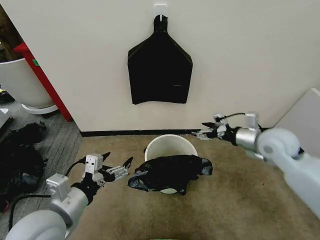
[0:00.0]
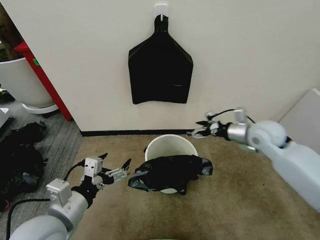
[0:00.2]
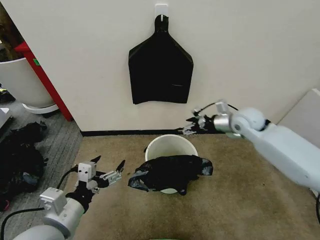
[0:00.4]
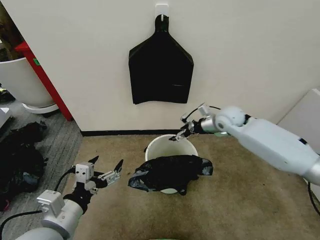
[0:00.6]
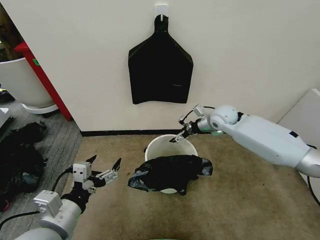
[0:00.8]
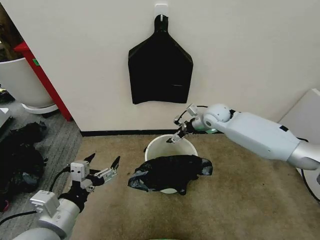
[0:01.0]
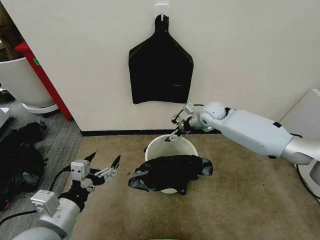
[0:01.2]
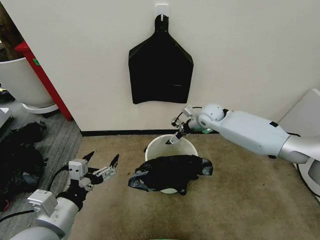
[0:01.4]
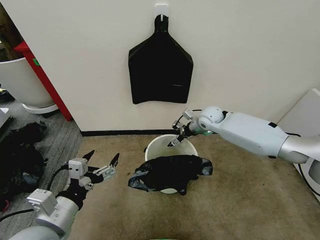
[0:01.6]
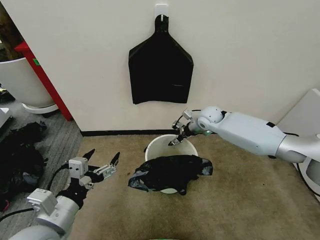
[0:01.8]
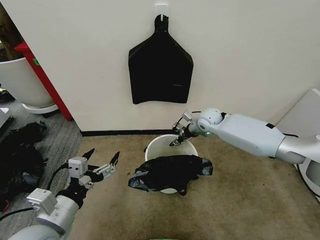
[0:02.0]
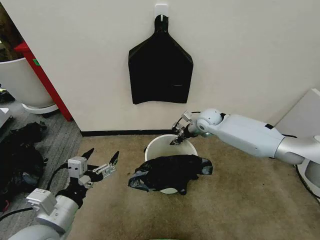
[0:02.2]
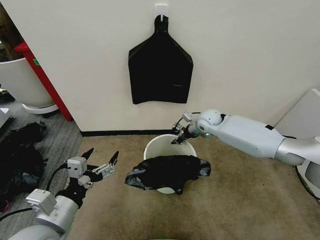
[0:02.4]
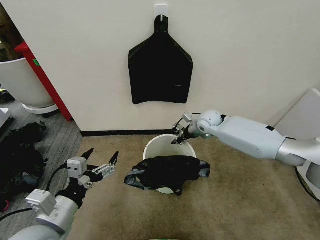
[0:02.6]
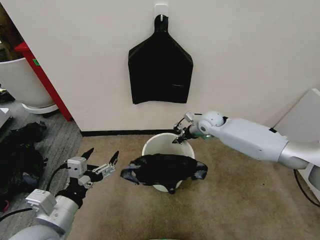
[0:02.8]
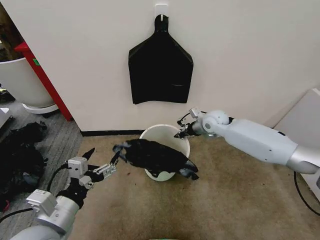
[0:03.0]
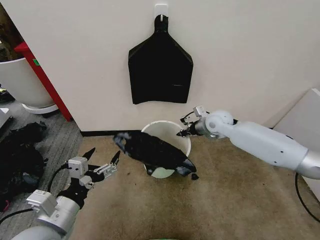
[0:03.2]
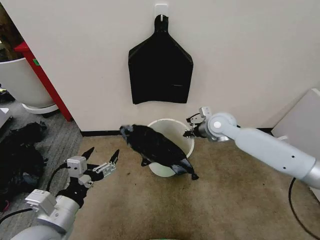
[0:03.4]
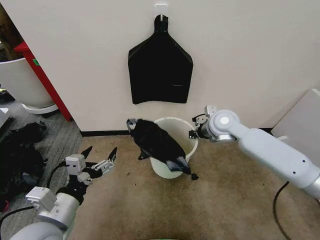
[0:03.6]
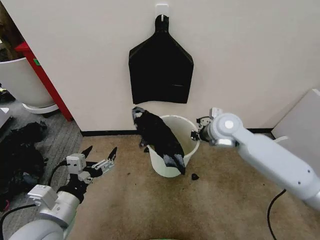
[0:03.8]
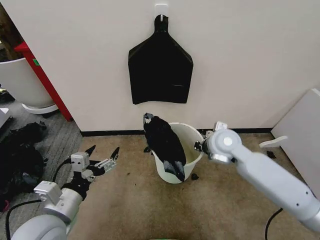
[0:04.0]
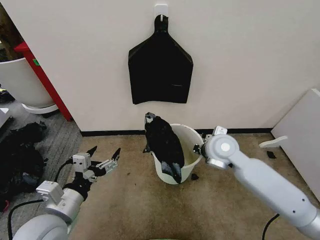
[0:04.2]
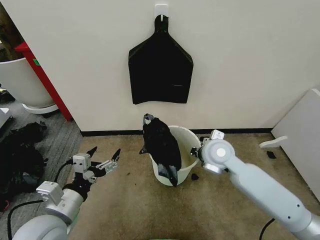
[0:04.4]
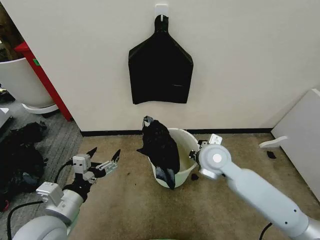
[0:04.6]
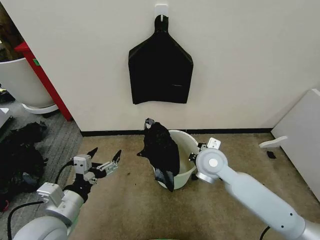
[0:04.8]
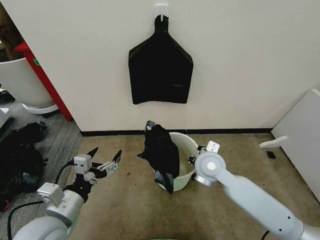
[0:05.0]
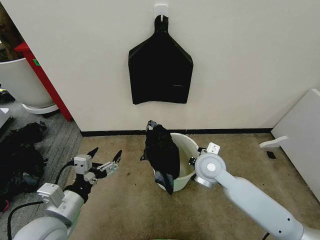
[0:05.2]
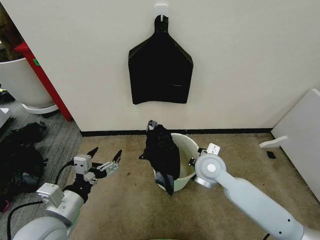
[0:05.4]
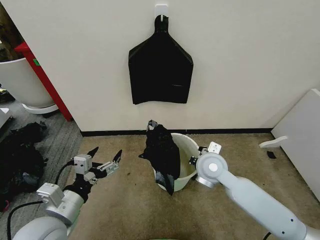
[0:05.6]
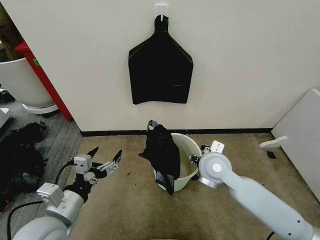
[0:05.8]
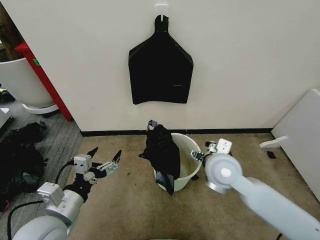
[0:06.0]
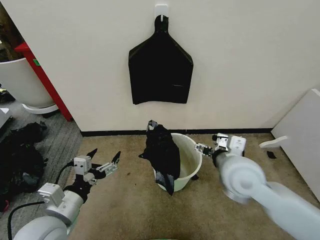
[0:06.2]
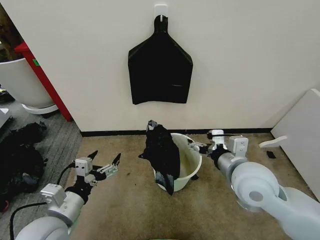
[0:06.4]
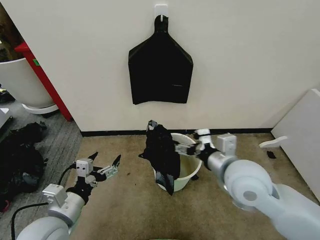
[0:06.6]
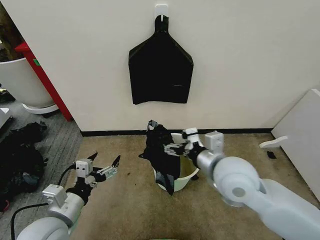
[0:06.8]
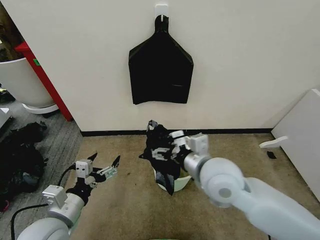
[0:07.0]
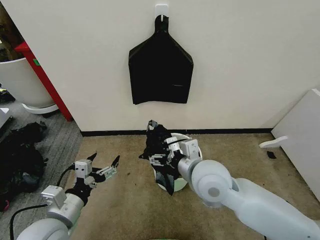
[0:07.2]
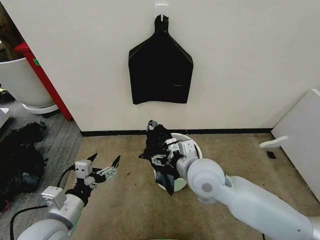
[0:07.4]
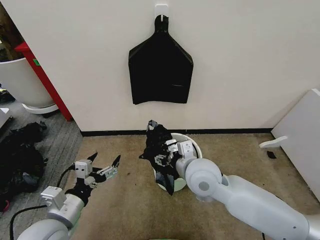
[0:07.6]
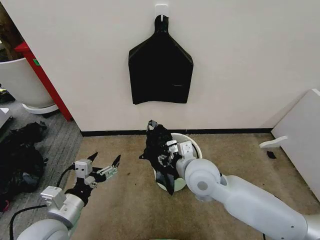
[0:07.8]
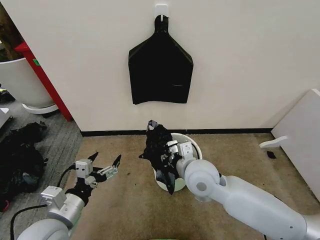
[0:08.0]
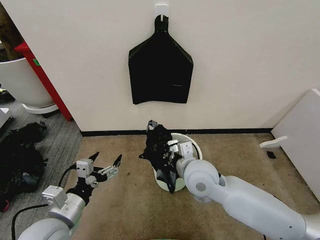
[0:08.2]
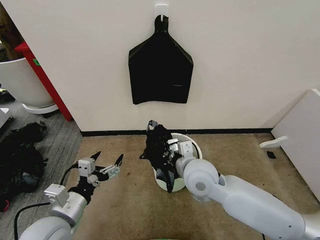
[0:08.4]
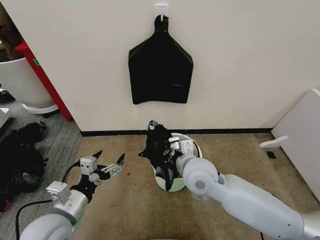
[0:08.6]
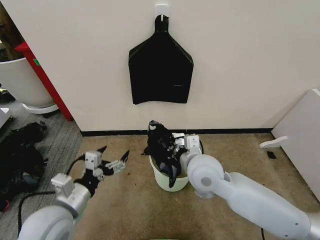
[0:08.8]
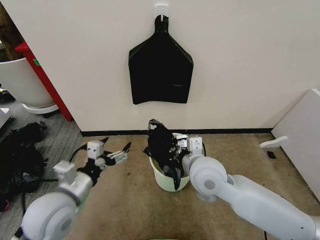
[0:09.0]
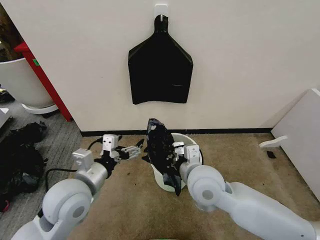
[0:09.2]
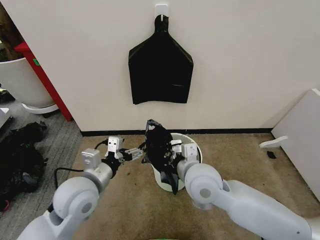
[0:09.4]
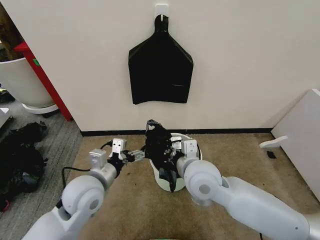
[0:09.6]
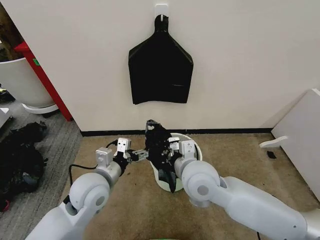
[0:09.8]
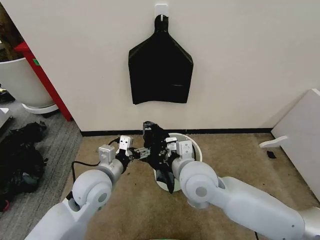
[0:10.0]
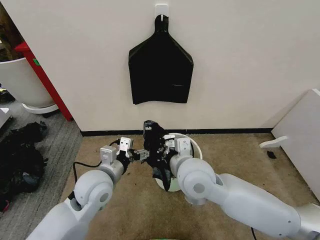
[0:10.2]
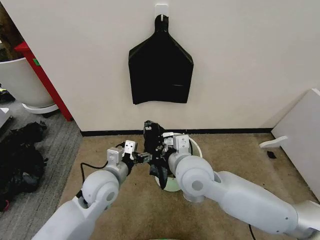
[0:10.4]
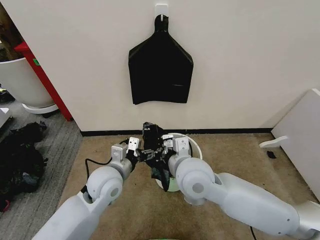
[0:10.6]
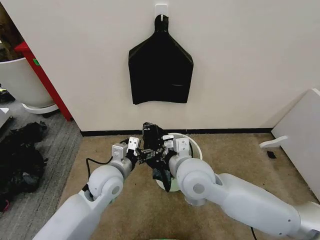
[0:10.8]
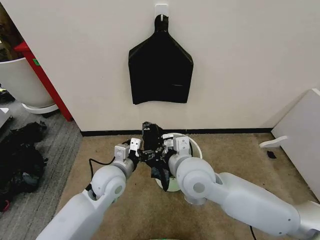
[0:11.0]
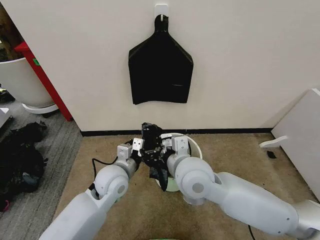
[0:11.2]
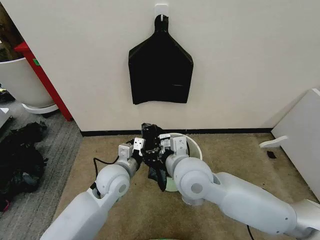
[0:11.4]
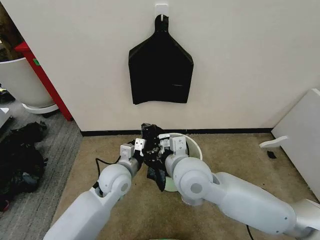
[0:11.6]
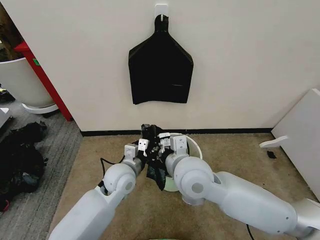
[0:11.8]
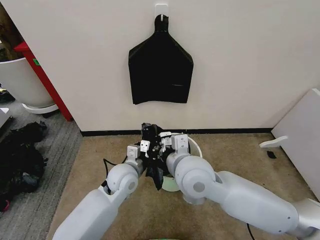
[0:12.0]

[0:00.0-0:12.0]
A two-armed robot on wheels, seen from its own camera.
Task of the whole recording: Place the garbage bag over the trash bin.
0:00.0 to 0:01.6: The right gripper is displaced forward and to the left by some 25 cm.
0:01.6 to 0:03.0: The right gripper closes up.
0:03.0 to 0:04.4: The right gripper heads backward, covering some 15 cm.
0:04.4 to 0:06.0: The right gripper is displaced backward by roughly 5 cm, and opens its fingers.
0:06.0 to 0:07.6: The right gripper moves to the left, about 5 cm.
0:07.6 to 0:09.0: The left gripper ends up about 5 cm from where it was. Meanwhile the right gripper closes.
0:09.0 to 0:10.4: The left gripper heads forward and to the right, covering about 10 cm.
0:10.4 to 0:12.0: The left gripper goes approximately 5 cm to the right.

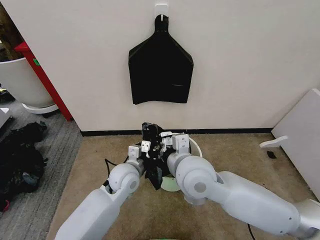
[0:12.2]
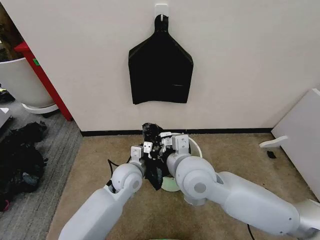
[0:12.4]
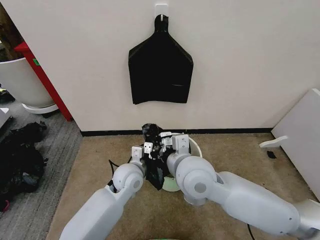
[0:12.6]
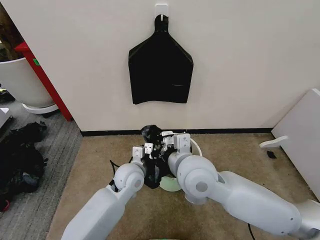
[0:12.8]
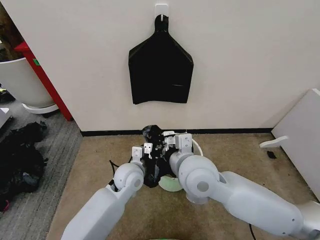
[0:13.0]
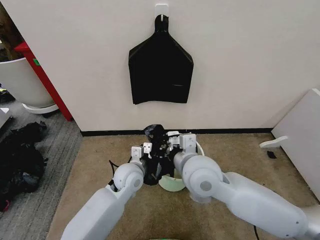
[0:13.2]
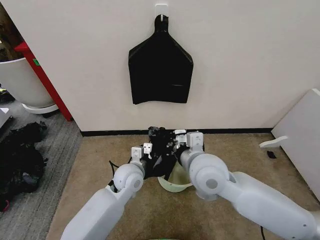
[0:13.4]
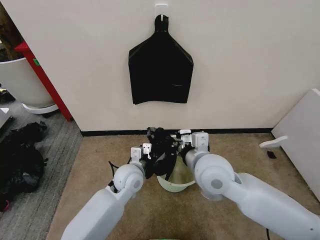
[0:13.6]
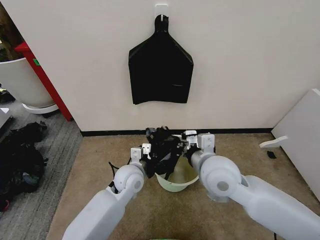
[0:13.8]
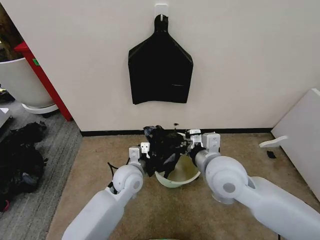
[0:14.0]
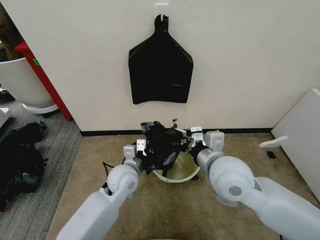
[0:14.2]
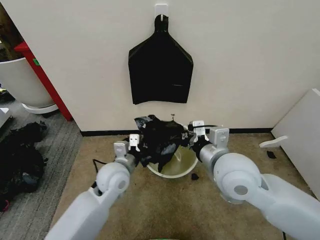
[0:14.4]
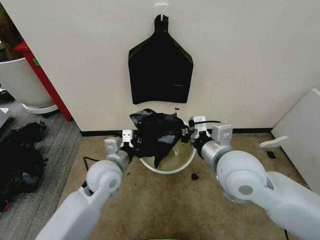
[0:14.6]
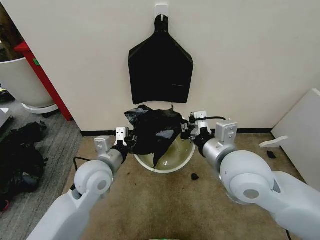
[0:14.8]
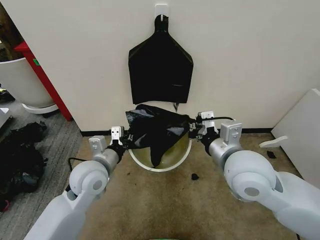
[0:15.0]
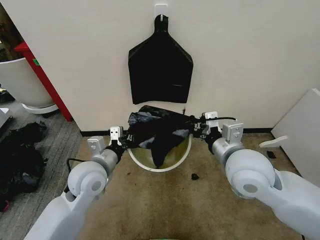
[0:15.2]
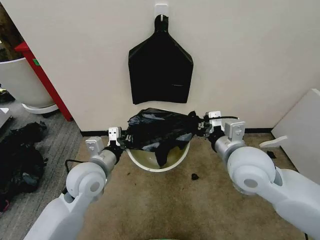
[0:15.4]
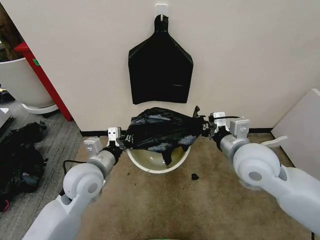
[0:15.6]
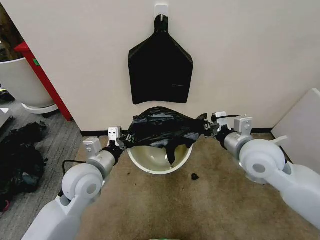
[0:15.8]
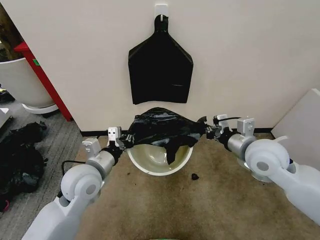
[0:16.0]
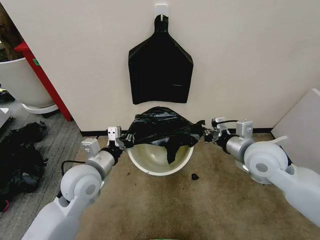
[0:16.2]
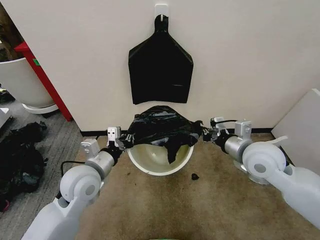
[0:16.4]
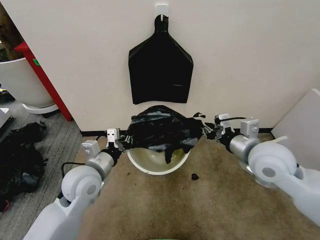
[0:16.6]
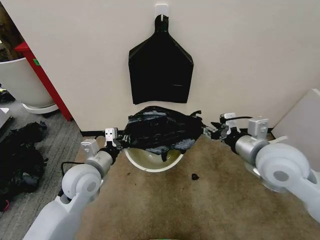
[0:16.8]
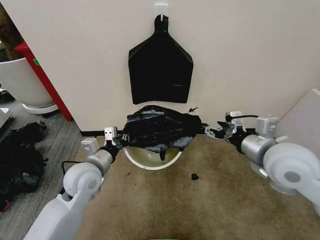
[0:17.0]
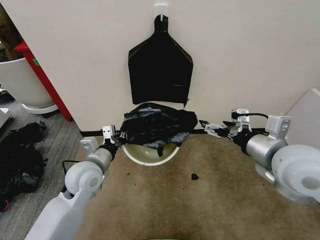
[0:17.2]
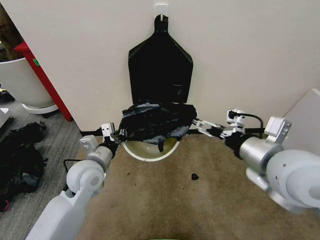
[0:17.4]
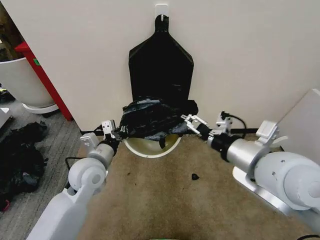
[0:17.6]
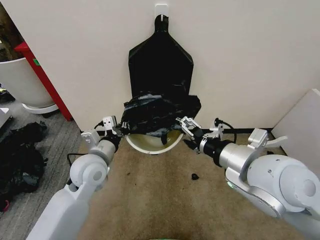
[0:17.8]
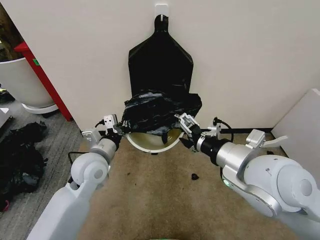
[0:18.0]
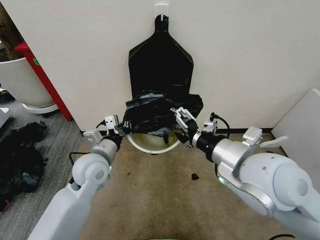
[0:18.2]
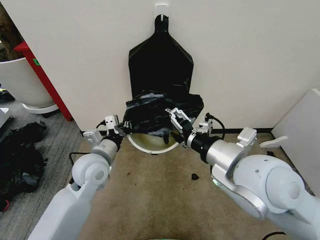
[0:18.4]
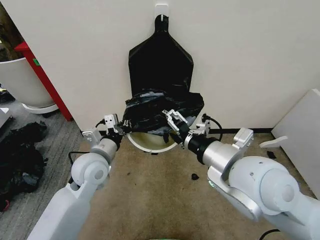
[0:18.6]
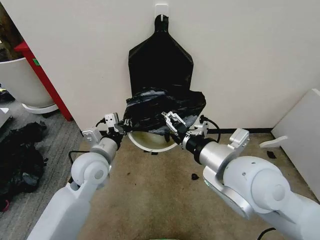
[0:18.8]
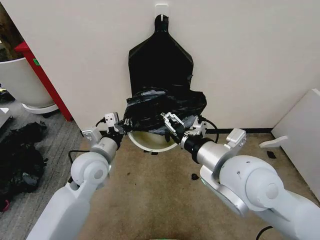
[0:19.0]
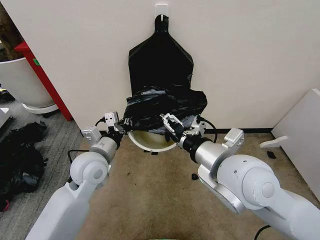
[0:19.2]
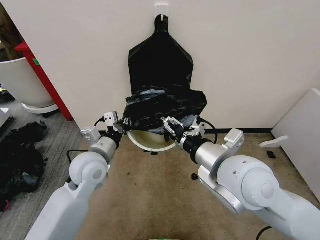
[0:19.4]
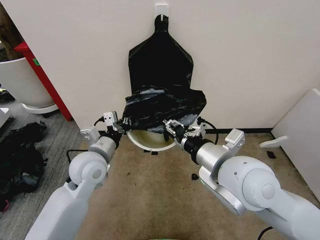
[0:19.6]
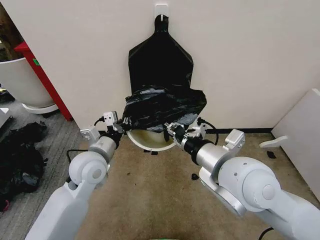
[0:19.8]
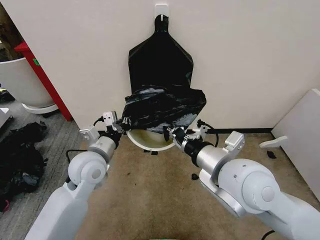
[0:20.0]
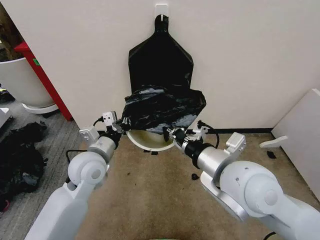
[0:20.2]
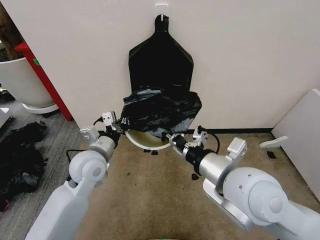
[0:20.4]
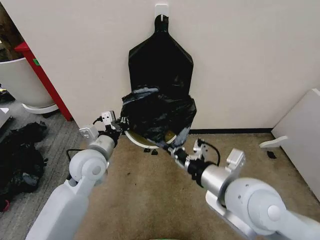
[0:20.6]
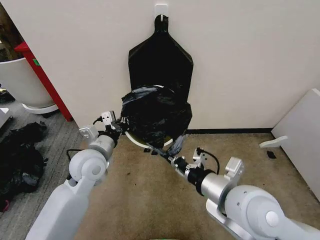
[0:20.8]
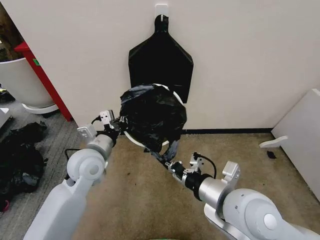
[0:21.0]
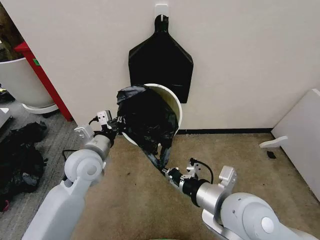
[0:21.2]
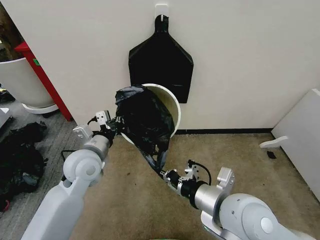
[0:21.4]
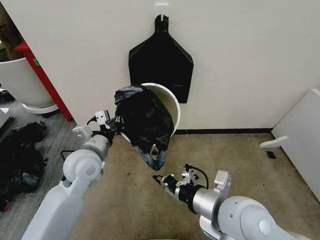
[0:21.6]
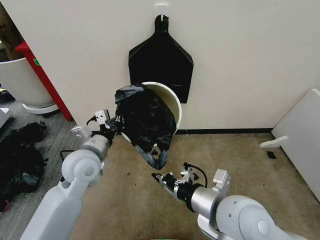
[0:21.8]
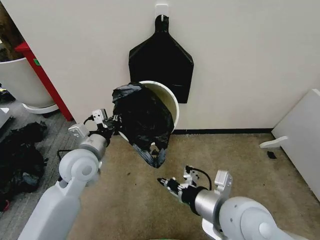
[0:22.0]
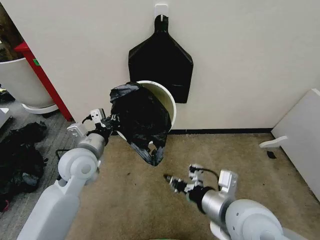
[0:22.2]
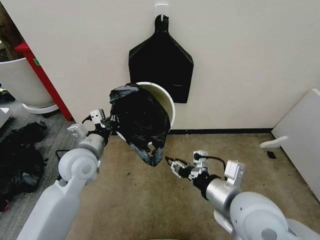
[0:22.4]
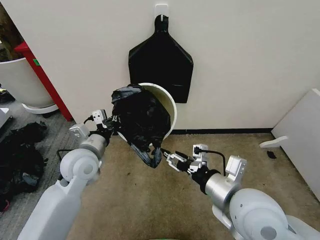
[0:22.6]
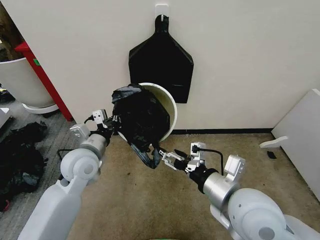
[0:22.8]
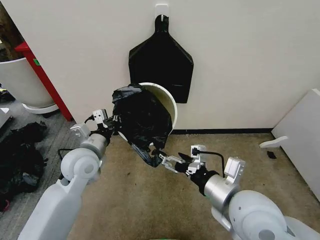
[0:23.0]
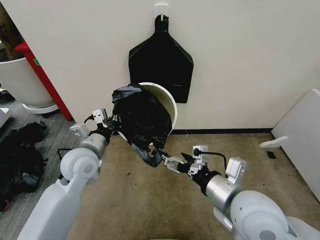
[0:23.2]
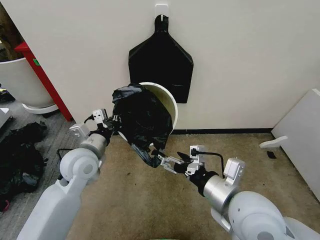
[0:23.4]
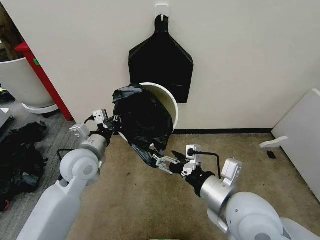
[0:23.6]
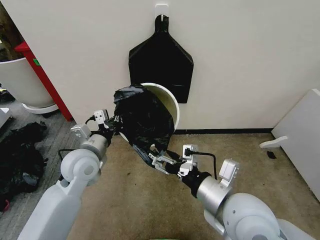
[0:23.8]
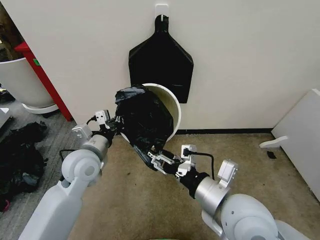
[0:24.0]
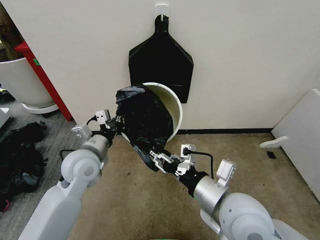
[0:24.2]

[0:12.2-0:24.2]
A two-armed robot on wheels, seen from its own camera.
Task of the whole recording: Place the garbage bag over the trash bin.
0:12.2 to 0:13.8: The right gripper is displaced to the right by approximately 5 cm, while the left gripper closes.
0:13.8 to 0:15.2: The right gripper moves roughly 5 cm. The left gripper travels to the left and upward by roughly 15 cm.
0:15.2 to 0:16.6: The right gripper travels to the right by roughly 5 cm.
0:16.6 to 0:18.2: The right gripper moves backward, to the left and upward, about 10 cm, and opens.
0:18.2 to 0:19.8: The right gripper closes its fingers.
0:19.8 to 0:21.2: The right gripper goes roughly 5 cm downward.
0:21.2 to 0:22.6: The right gripper opens its fingers.
0:22.6 to 0:24.2: The right gripper opens, then closes again.
